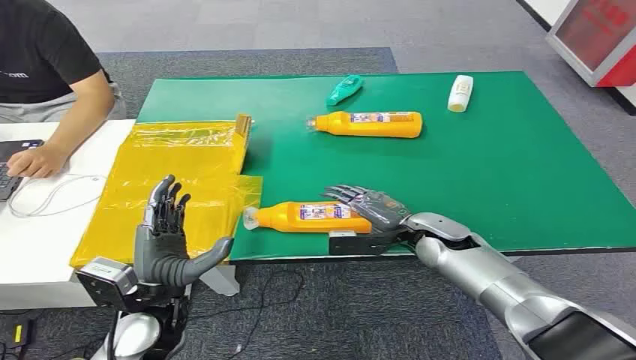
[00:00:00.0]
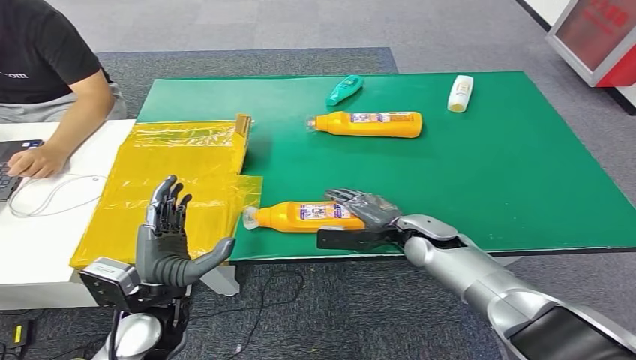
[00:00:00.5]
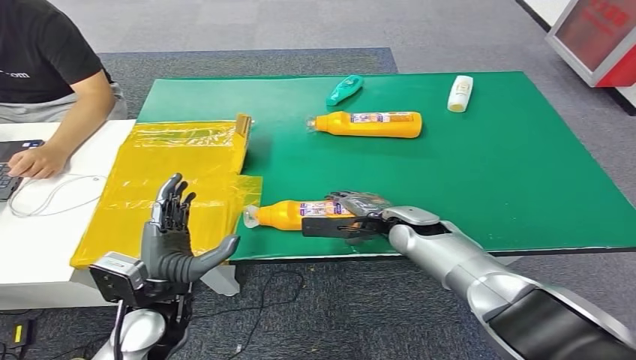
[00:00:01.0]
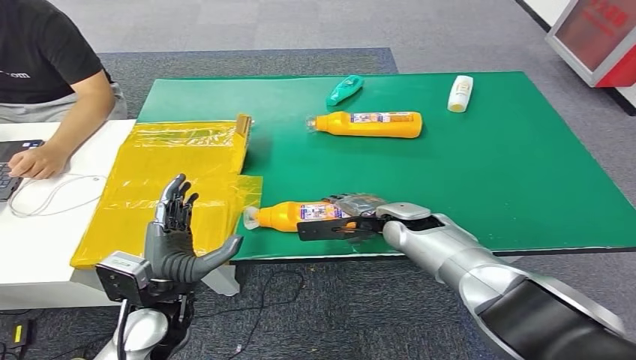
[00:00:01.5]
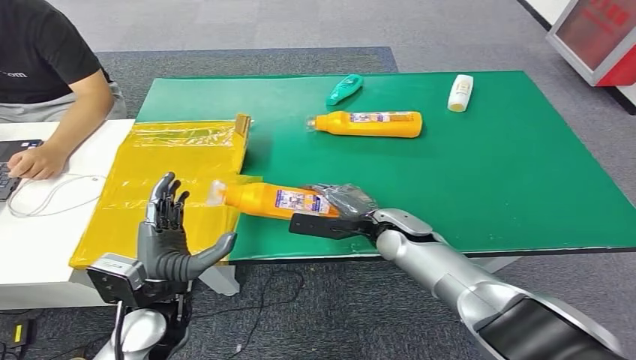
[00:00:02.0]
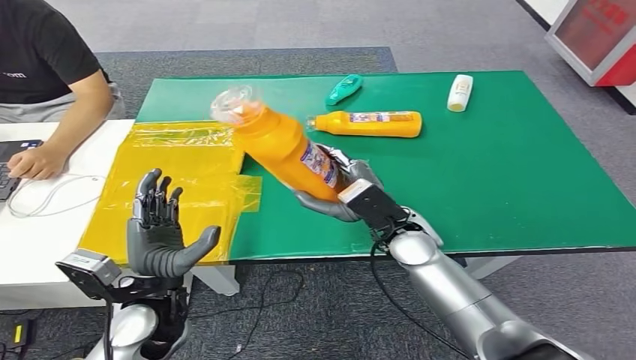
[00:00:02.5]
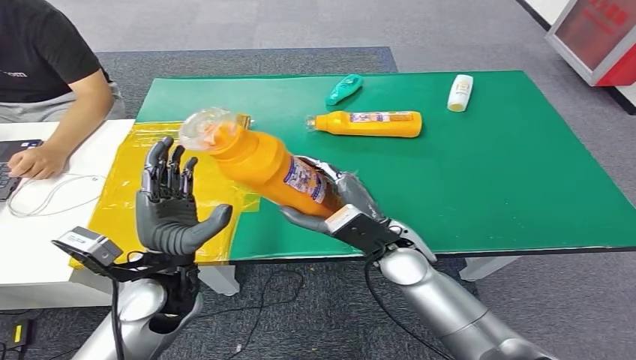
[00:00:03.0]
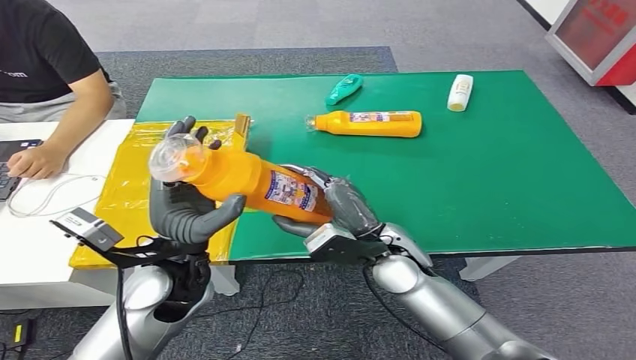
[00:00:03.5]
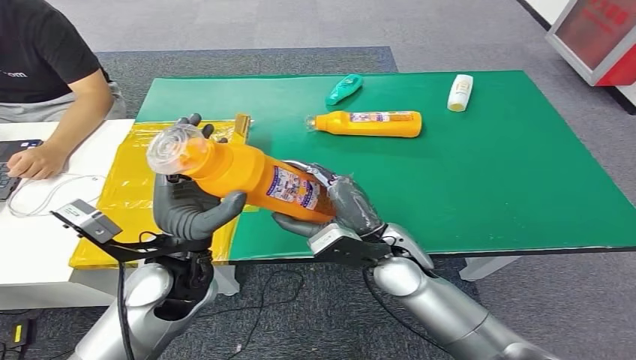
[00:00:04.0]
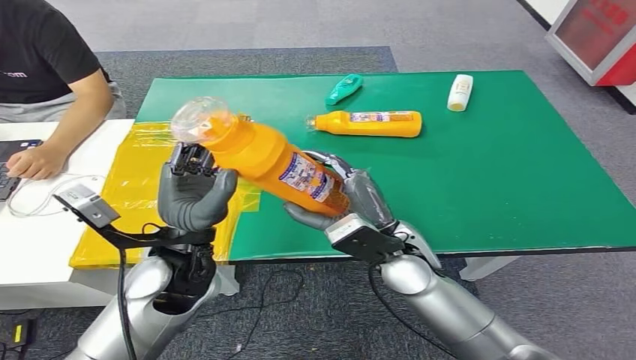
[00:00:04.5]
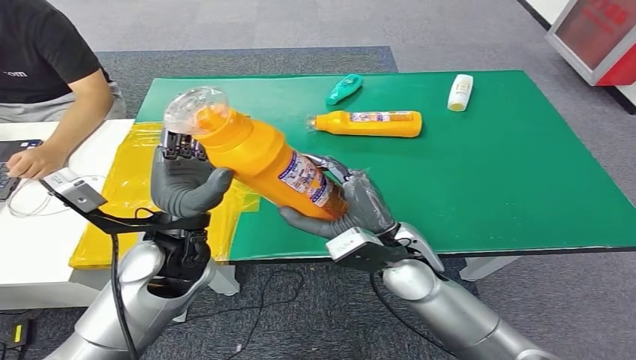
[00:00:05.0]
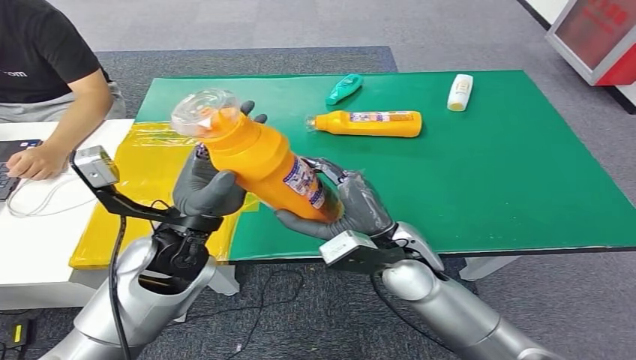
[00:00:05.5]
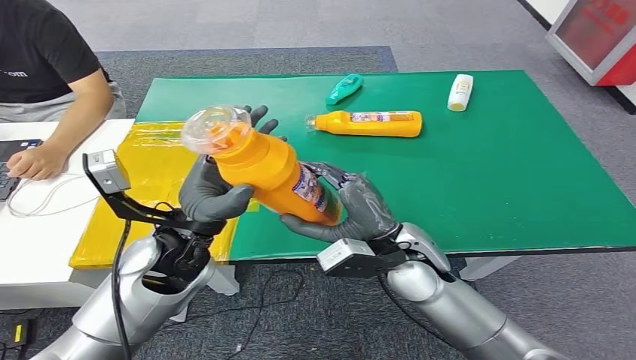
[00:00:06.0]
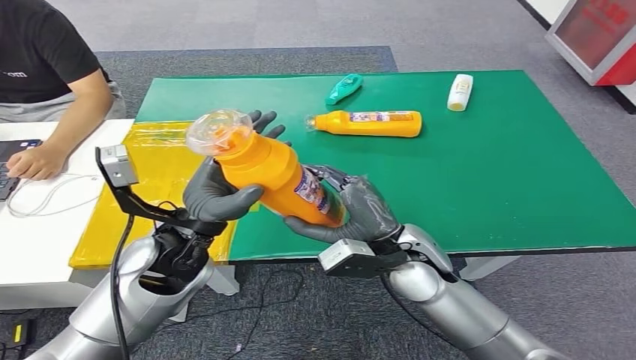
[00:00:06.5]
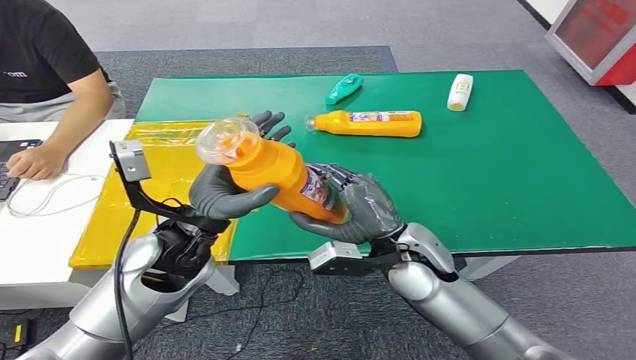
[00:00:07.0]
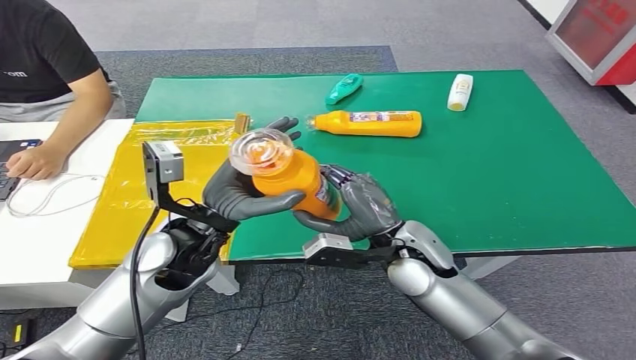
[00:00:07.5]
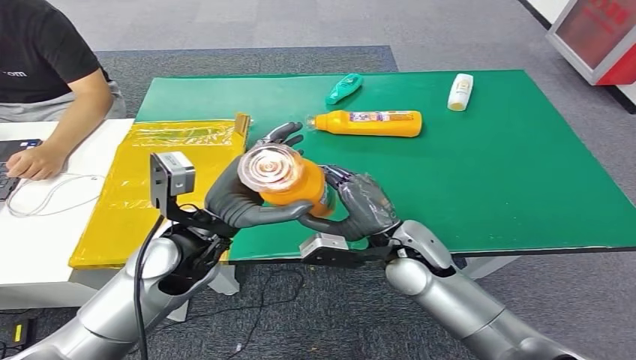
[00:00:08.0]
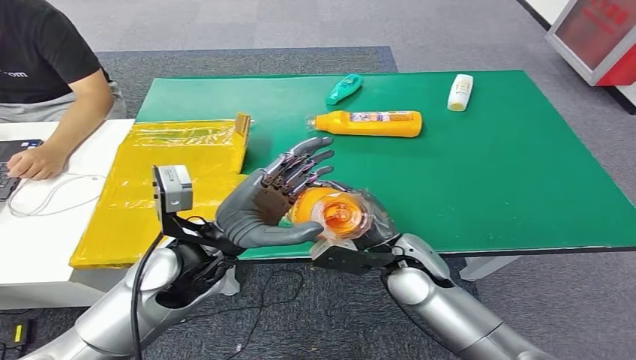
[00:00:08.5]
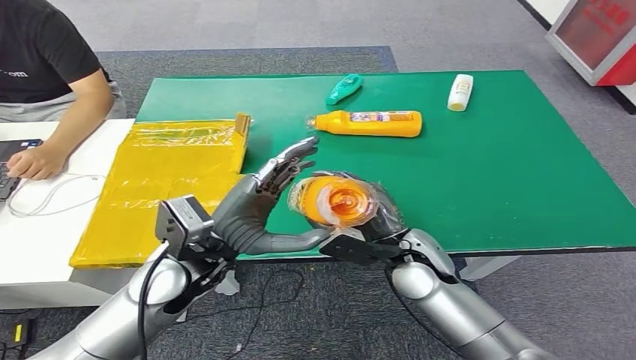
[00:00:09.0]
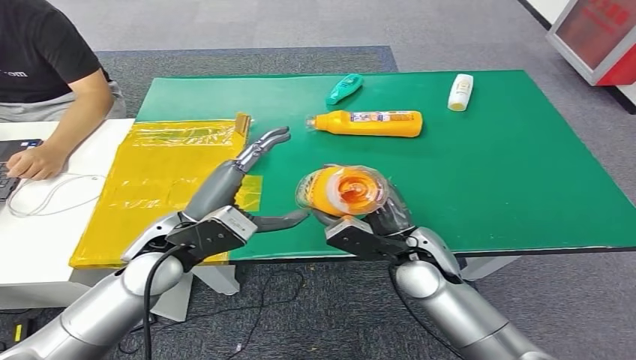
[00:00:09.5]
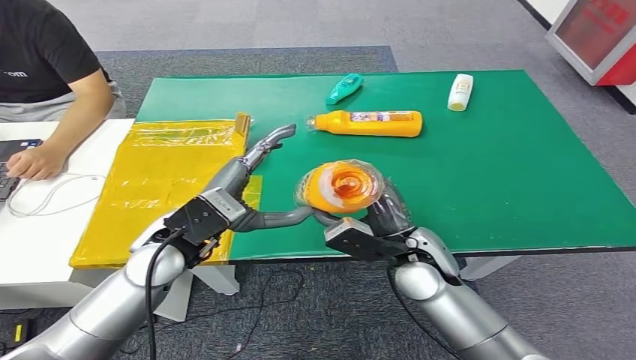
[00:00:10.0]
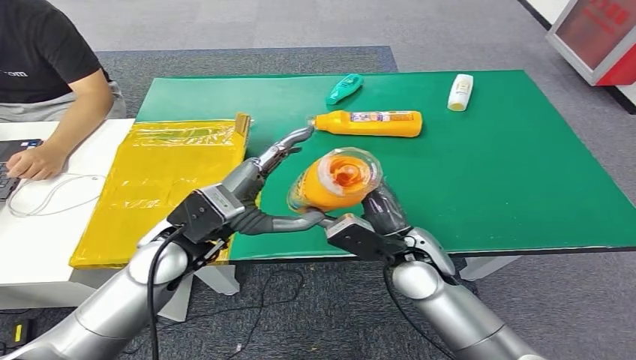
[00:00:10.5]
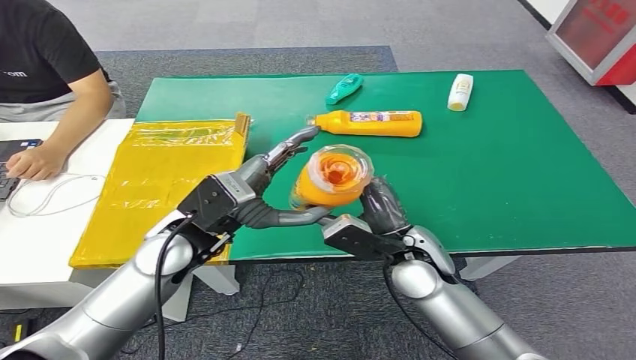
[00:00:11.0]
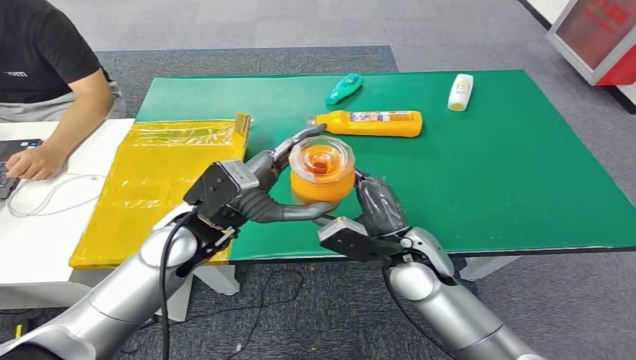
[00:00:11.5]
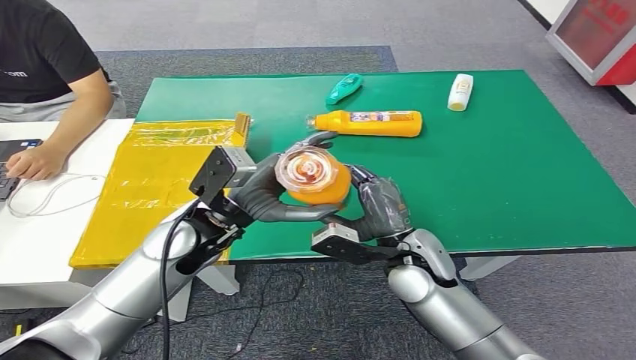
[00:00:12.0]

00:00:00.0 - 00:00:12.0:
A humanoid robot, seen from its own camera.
Step, 00:00:00.0 - 00:00:02.5: Pick up the bottle from the table.
00:00:06.0 - 00:00:08.0: The hands stay close to where they were, moving slightly.

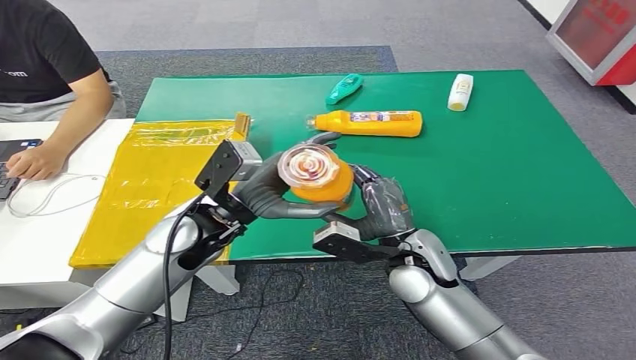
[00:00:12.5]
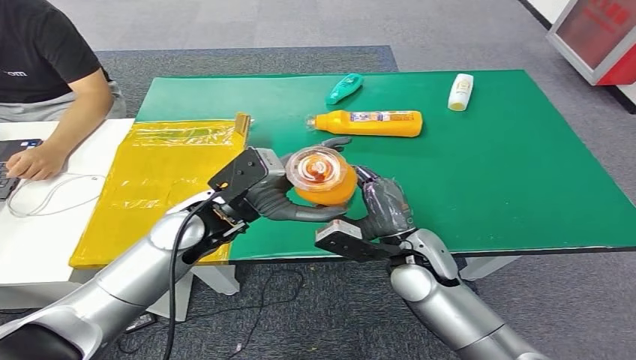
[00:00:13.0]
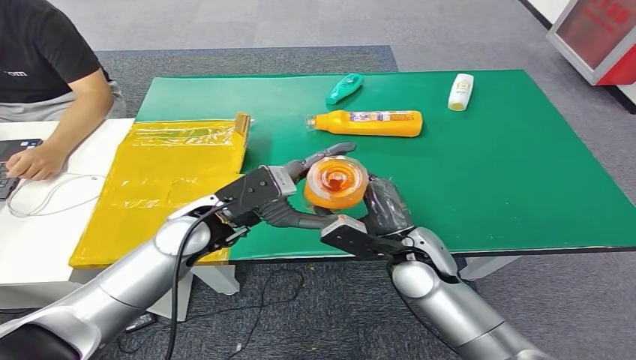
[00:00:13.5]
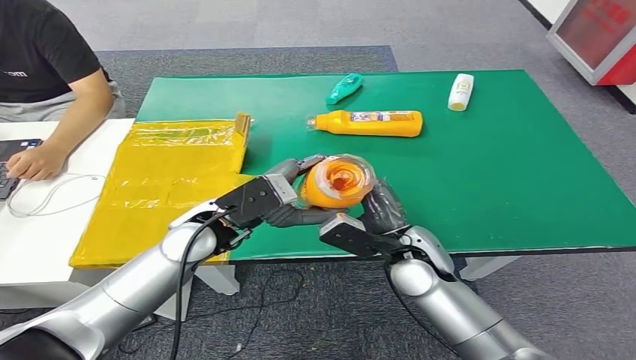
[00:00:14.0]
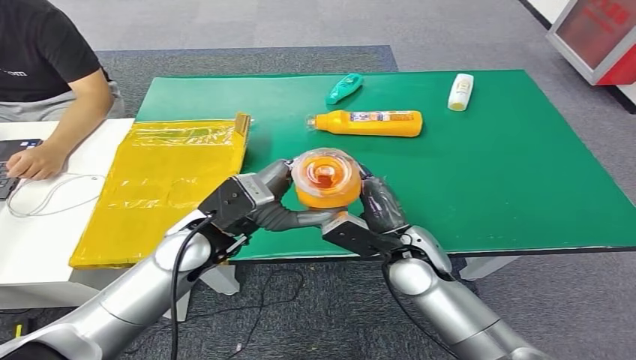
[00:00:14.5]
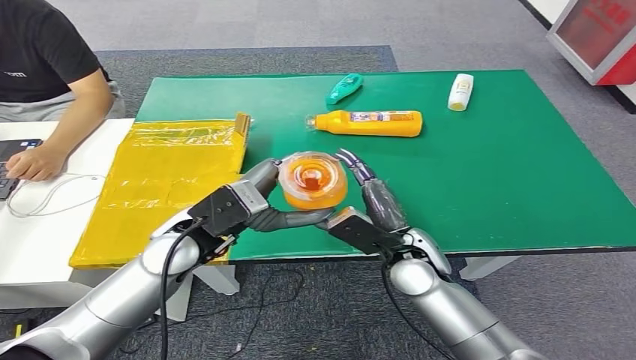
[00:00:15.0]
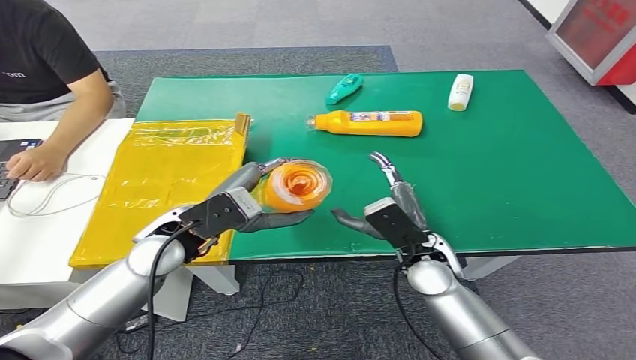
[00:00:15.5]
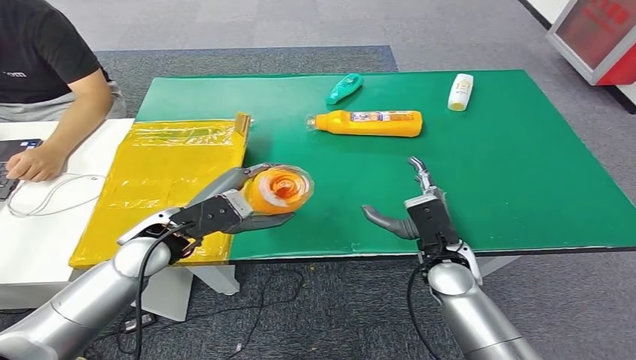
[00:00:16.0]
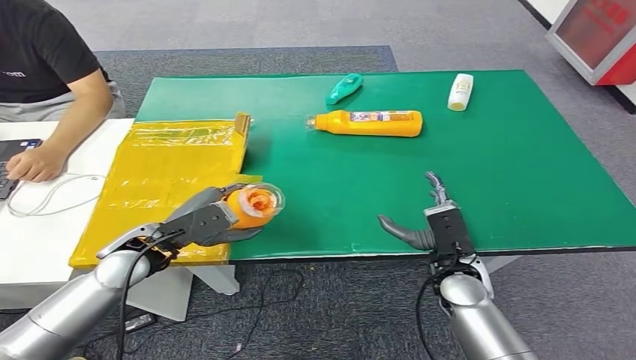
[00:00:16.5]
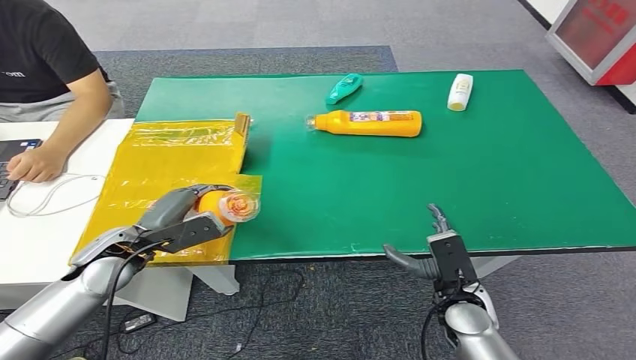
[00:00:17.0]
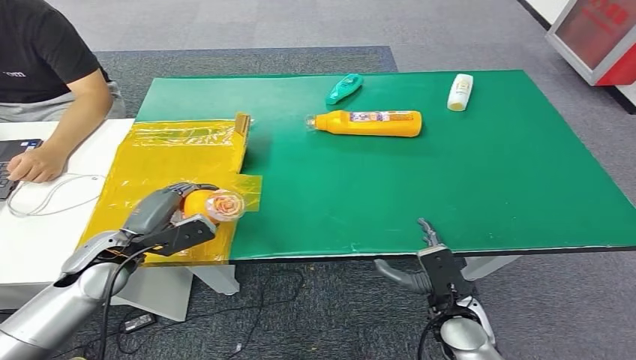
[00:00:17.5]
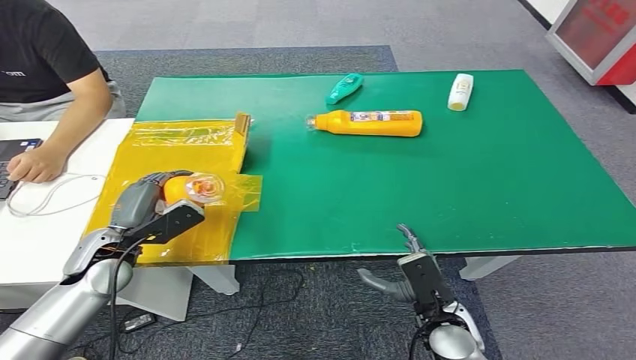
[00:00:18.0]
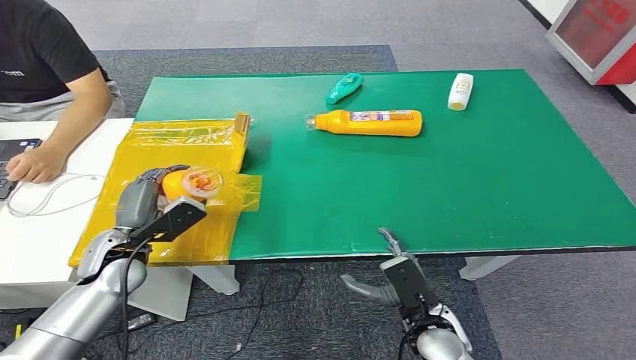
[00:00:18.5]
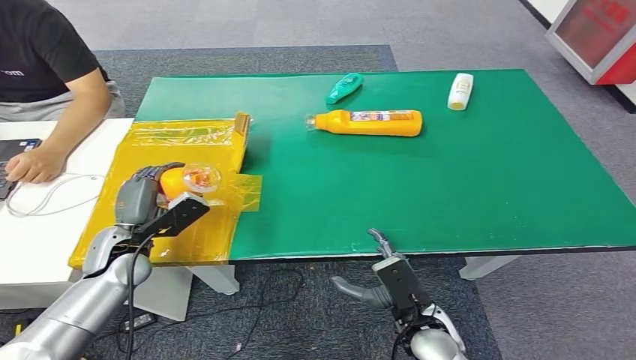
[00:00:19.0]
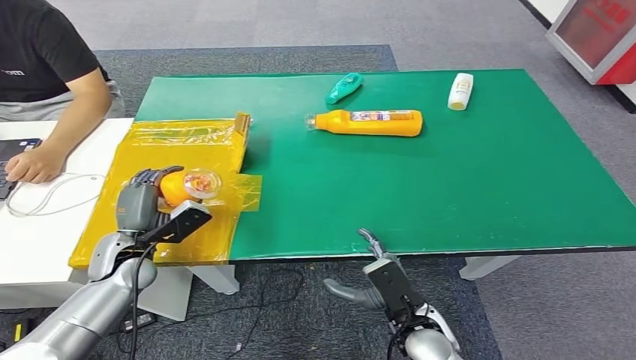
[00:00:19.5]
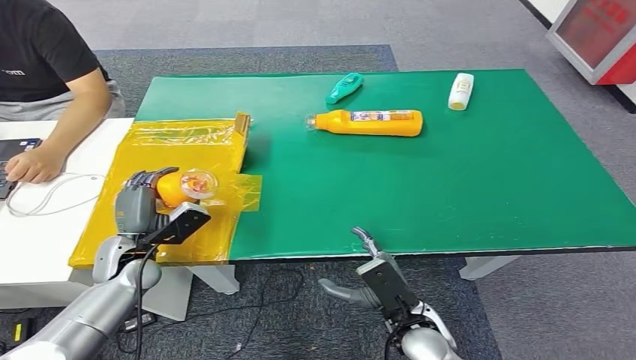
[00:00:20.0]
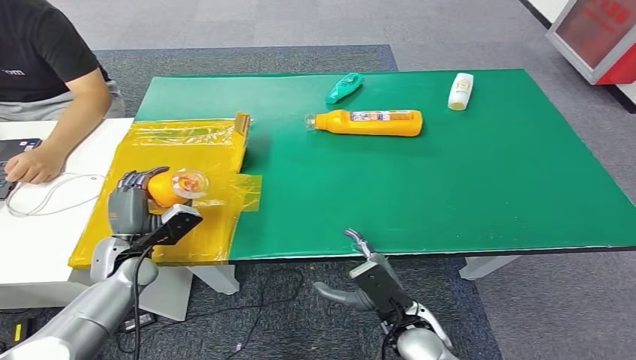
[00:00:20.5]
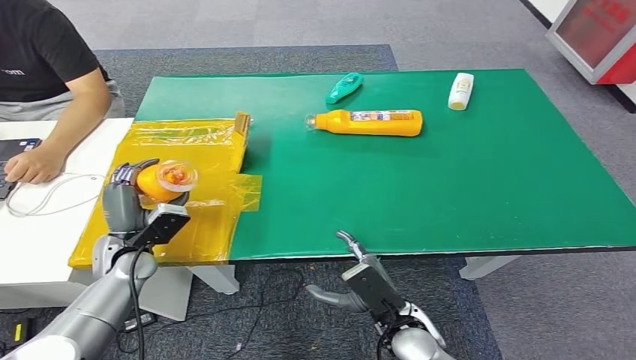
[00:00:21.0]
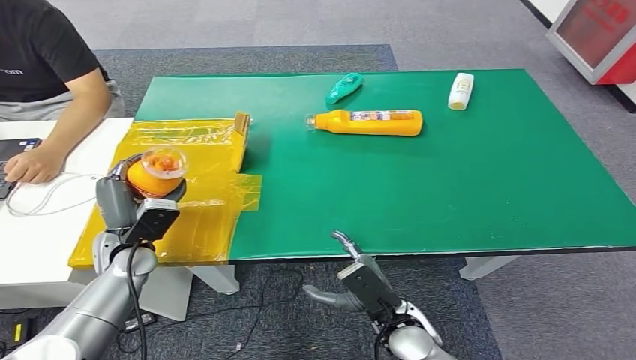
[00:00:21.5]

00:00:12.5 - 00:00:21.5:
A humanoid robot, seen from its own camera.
Step, 00:00:12.5 - 00:00:21.5: Turn the bottle to the front side.
00:00:12.5 - 00:00:14.5: The hands make only small movements.
00:00:14.5 - 00:00:17.0: The right hand heads downward, to the right and backward, covering some 15 cm. Meanwhile the left hand heads to the left and downward, covering about 15 cm.
00:00:17.0 - 00:00:19.5: The left hand heads downward, covering roughly 5 cm, while the right hand travels to the left by approximately 5 cm.
